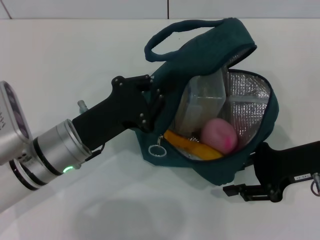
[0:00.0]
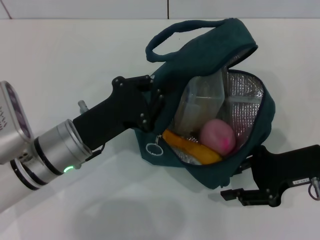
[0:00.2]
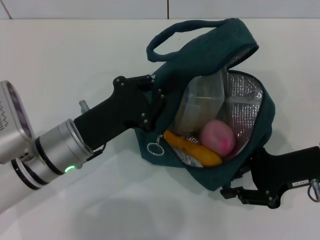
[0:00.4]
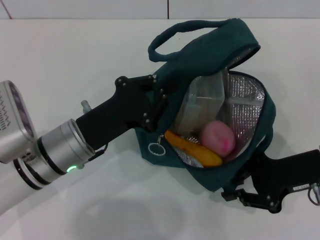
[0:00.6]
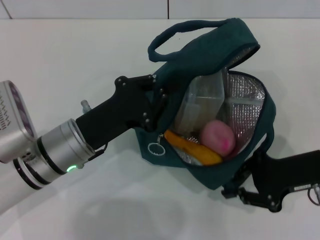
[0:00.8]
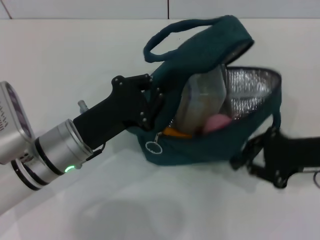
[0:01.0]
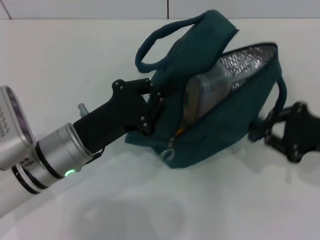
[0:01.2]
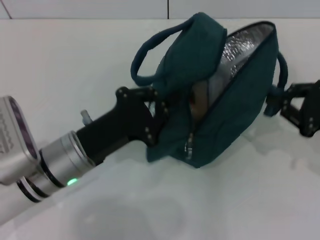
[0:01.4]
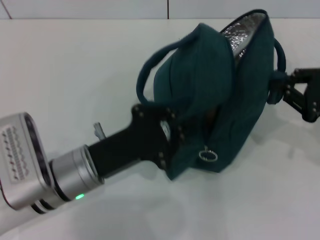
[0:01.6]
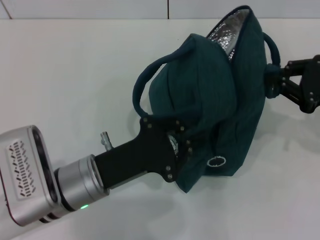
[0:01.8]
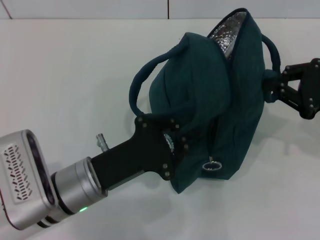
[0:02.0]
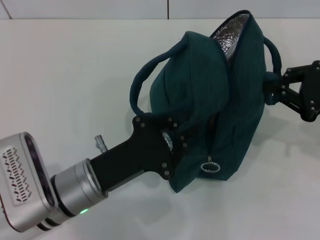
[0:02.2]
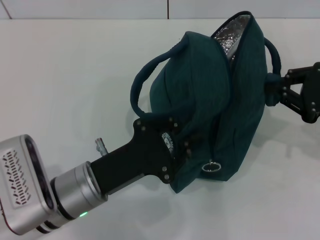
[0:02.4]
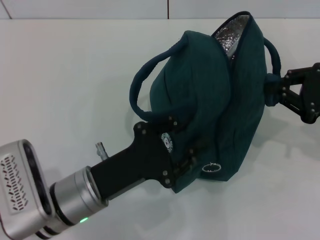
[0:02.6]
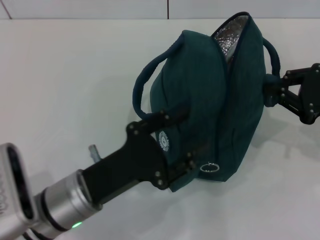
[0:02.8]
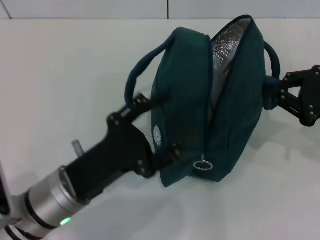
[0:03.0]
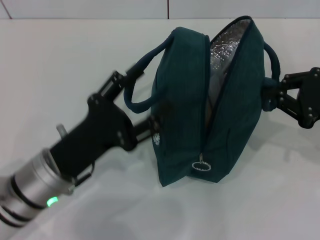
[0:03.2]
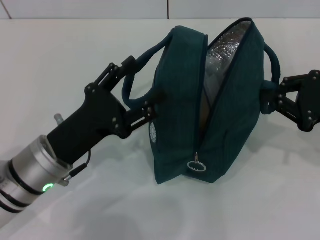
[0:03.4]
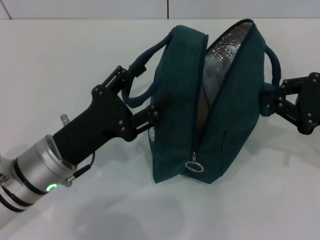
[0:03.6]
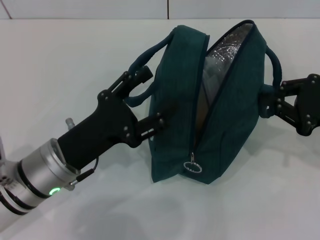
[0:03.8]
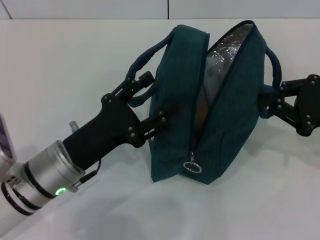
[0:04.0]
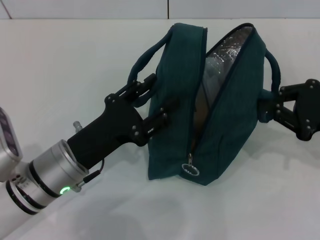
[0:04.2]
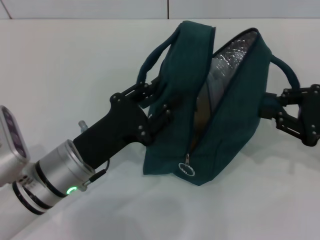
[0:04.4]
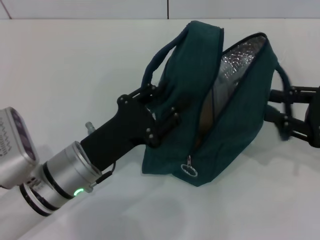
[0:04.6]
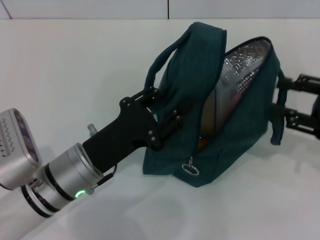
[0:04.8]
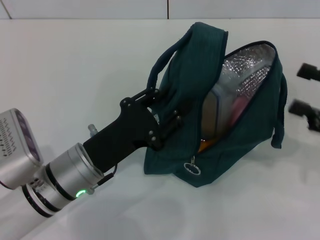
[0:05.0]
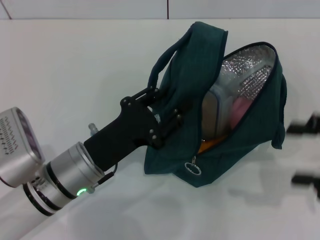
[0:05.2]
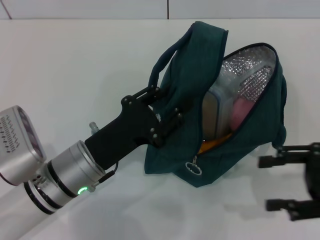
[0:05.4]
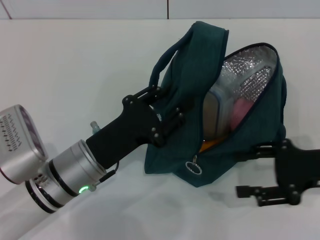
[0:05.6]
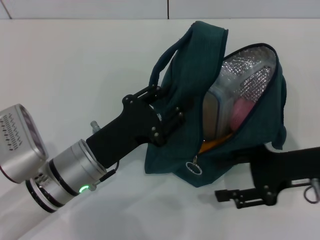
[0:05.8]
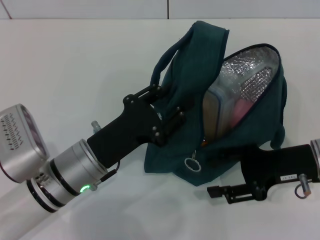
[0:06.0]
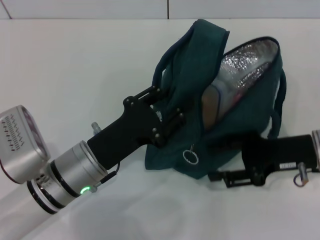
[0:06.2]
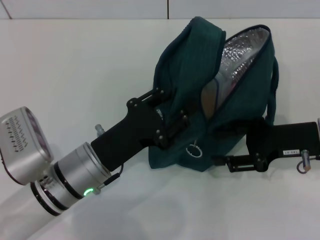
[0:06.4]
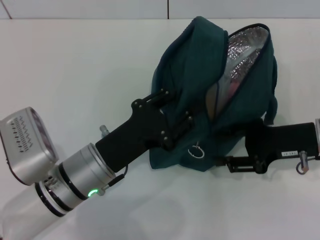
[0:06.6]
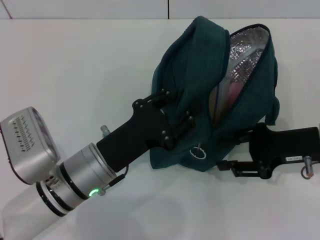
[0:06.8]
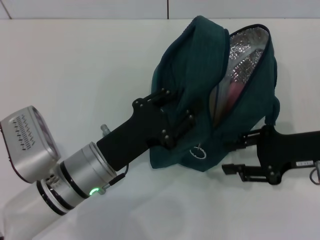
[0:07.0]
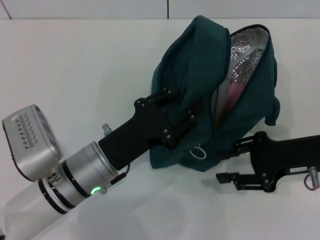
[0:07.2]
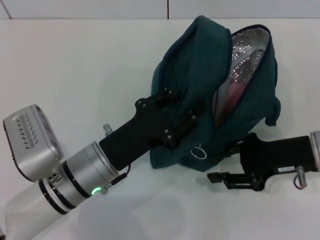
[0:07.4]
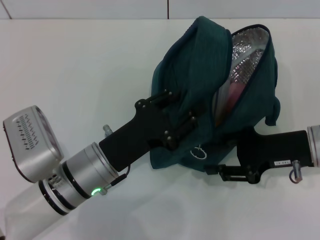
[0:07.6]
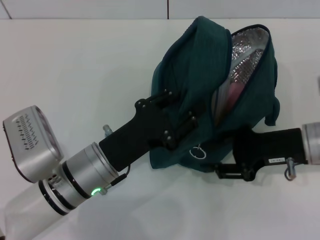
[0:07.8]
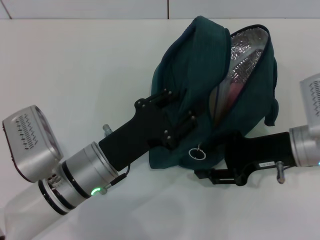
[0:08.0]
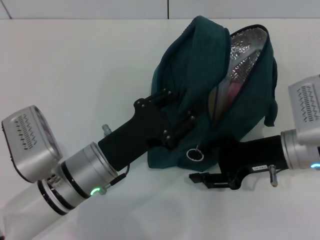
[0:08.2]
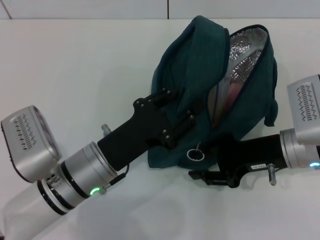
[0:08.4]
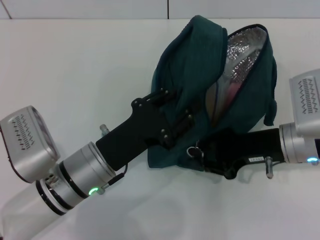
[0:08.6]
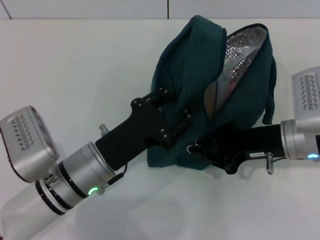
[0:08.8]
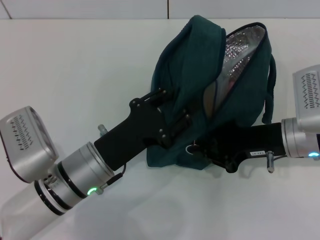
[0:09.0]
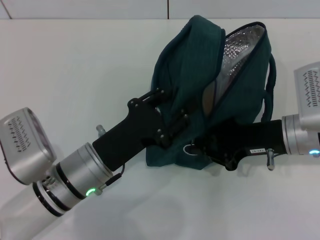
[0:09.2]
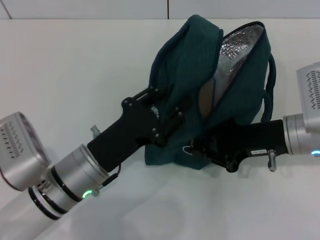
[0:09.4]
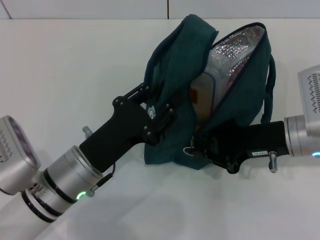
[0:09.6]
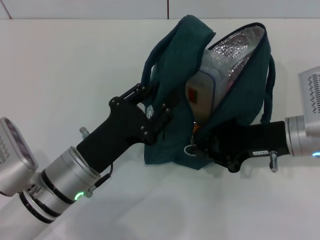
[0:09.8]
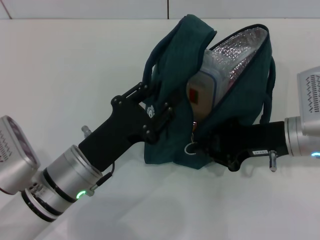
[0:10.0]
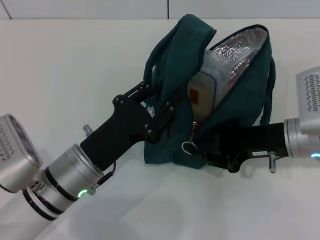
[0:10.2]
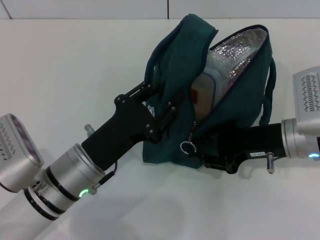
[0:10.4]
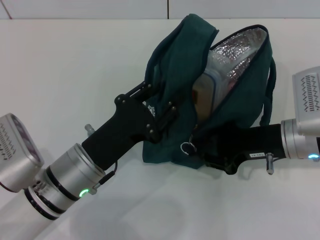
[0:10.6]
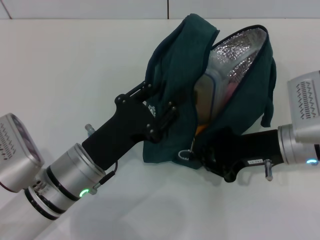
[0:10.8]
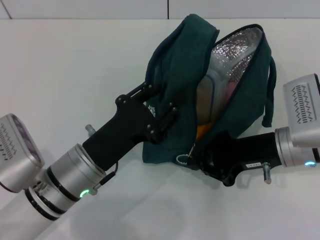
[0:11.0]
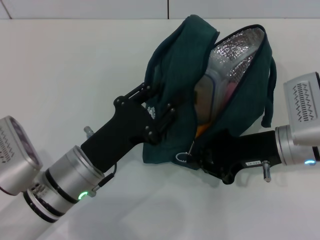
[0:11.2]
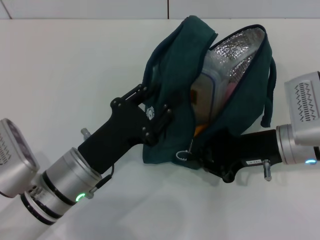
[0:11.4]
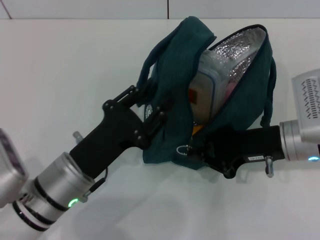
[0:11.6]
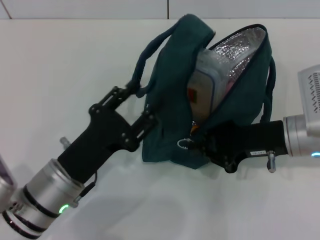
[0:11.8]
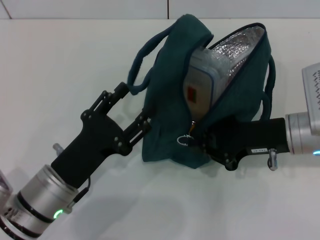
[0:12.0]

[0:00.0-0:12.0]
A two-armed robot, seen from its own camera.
Step, 0:00.0 to 0:04.6: Hold the lunch bag with your right hand.
Step, 0:04.8 to 0:11.4: Hold the lunch bag with your left hand.
0:00.0 to 0:01.6: The right gripper travels to the right by about 5 cm, and closes.
0:01.6 to 0:03.0: The left gripper opens its fingers.
0:04.4 to 0:06.0: The right gripper travels to the left by approximately 5 cm, and opens.
0:07.6 to 0:09.0: The right gripper closes.
0:09.0 to 0:12.0: There are only small adjustments of the grippers.

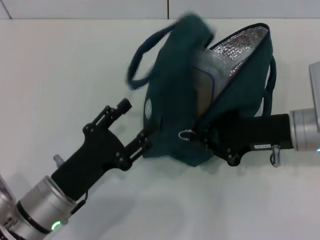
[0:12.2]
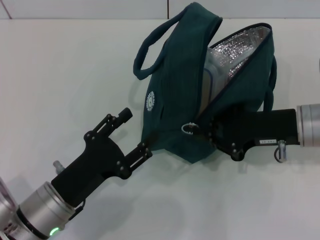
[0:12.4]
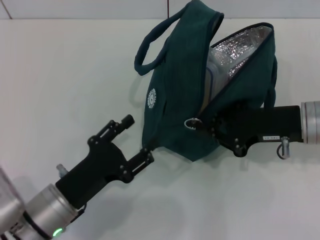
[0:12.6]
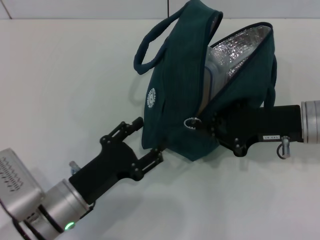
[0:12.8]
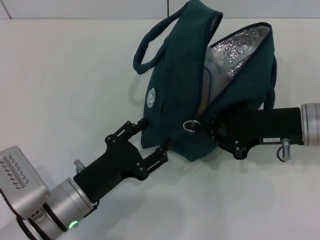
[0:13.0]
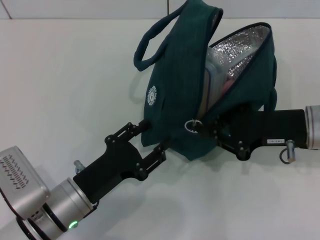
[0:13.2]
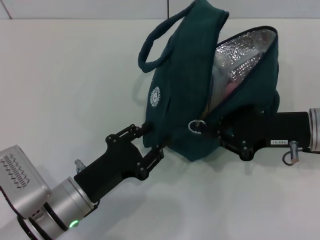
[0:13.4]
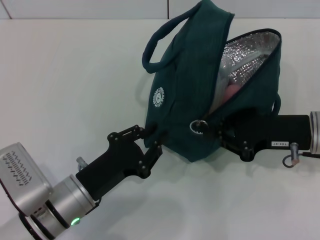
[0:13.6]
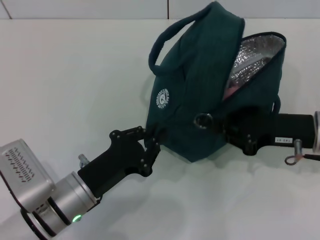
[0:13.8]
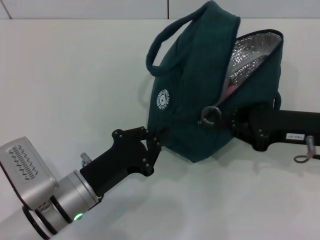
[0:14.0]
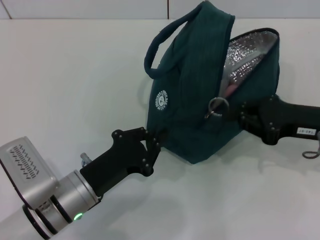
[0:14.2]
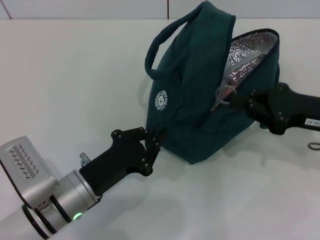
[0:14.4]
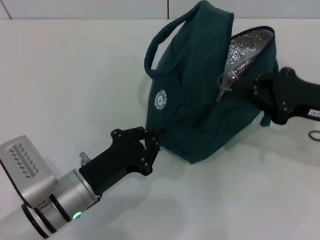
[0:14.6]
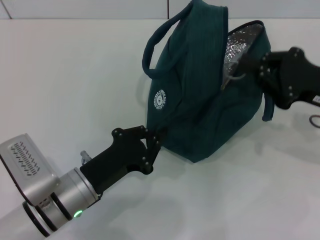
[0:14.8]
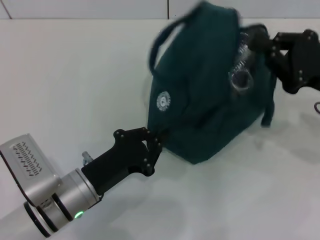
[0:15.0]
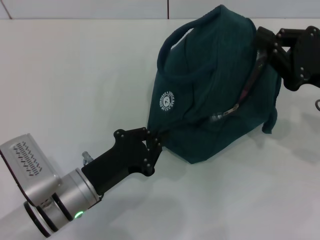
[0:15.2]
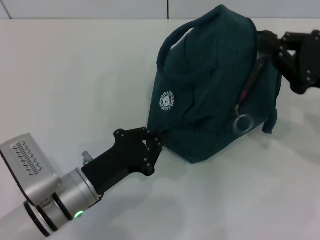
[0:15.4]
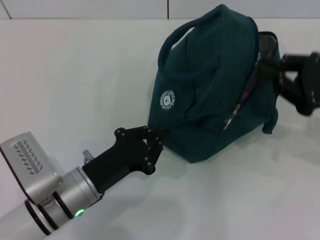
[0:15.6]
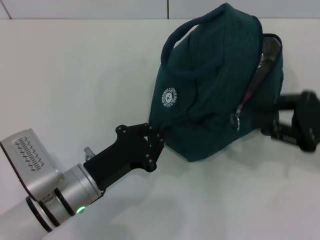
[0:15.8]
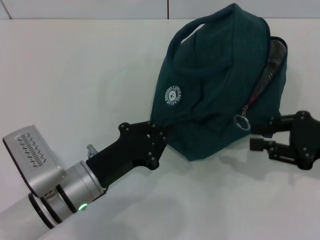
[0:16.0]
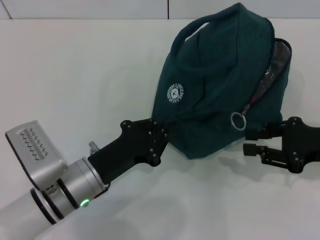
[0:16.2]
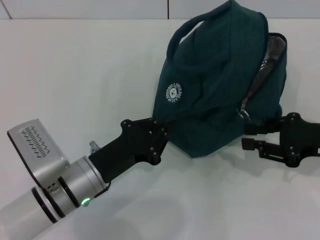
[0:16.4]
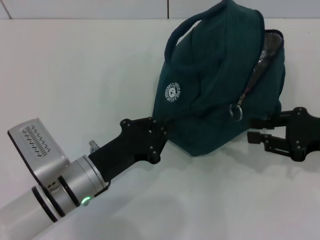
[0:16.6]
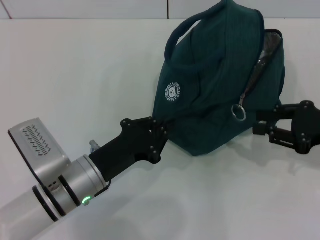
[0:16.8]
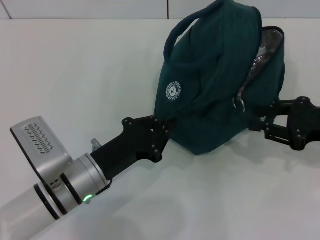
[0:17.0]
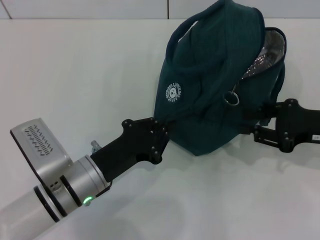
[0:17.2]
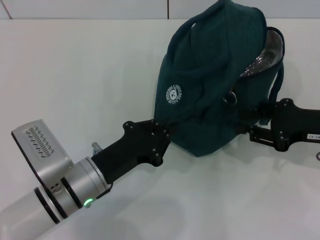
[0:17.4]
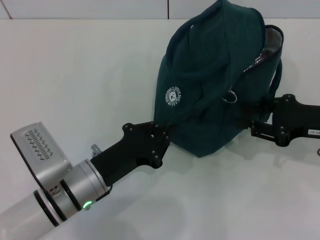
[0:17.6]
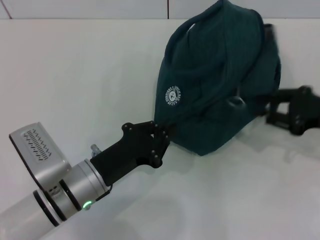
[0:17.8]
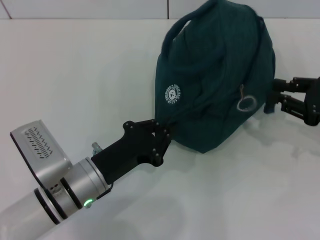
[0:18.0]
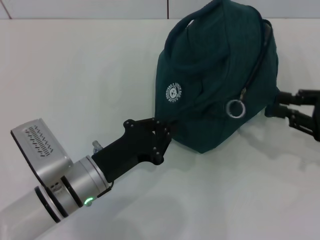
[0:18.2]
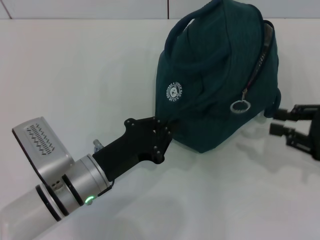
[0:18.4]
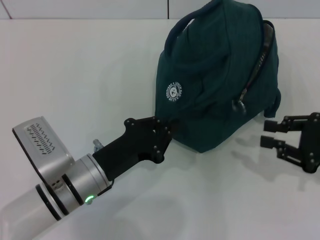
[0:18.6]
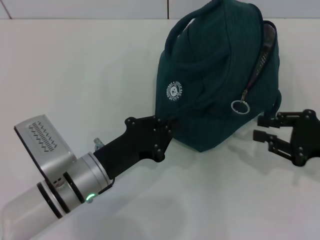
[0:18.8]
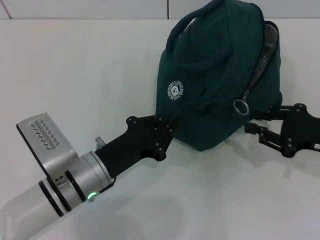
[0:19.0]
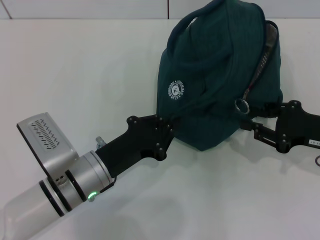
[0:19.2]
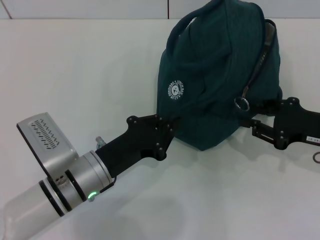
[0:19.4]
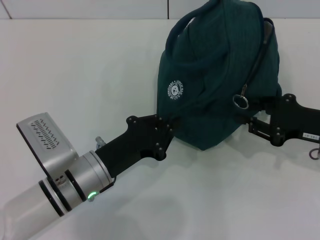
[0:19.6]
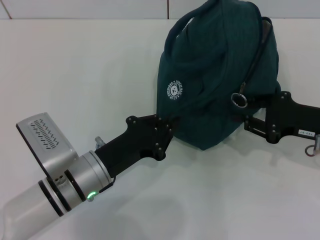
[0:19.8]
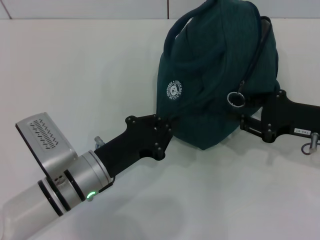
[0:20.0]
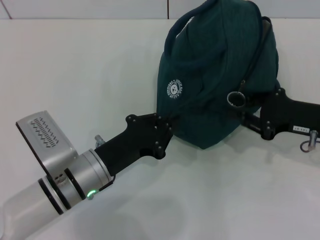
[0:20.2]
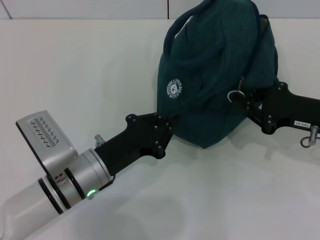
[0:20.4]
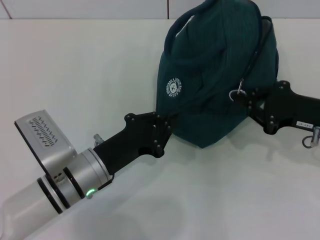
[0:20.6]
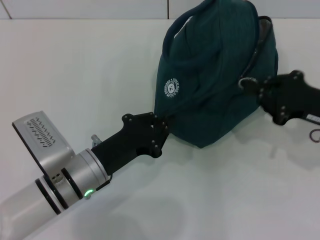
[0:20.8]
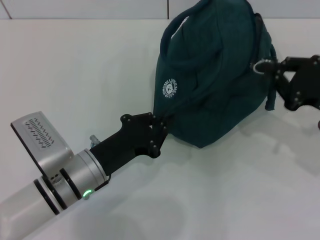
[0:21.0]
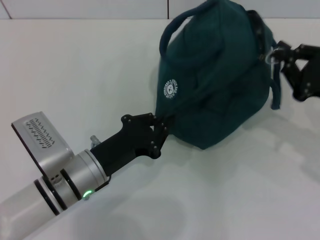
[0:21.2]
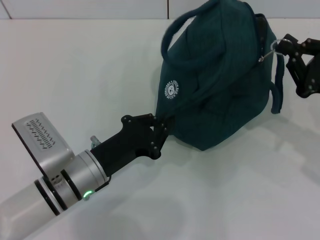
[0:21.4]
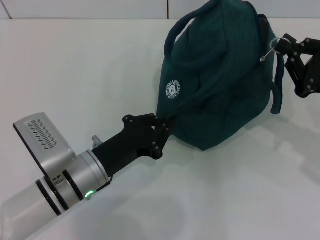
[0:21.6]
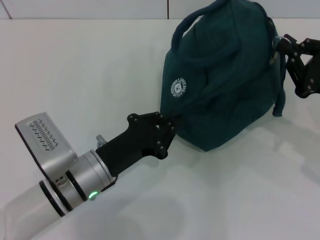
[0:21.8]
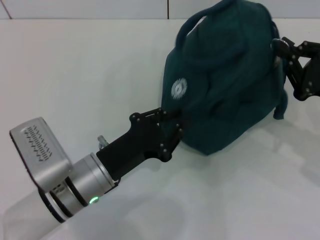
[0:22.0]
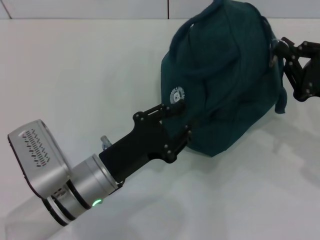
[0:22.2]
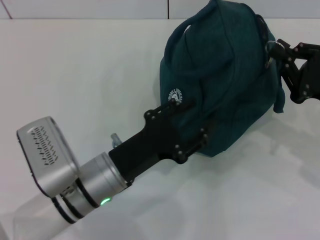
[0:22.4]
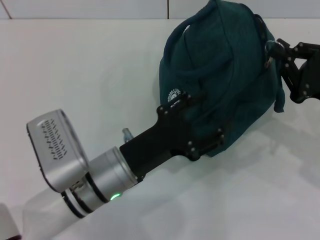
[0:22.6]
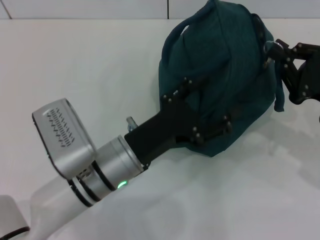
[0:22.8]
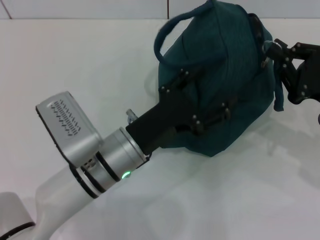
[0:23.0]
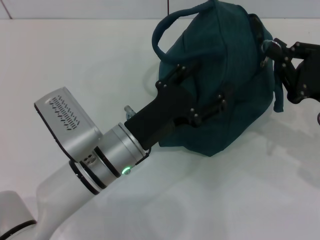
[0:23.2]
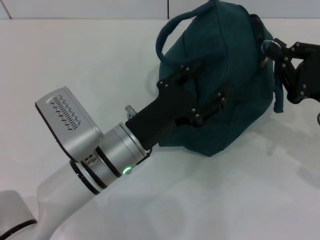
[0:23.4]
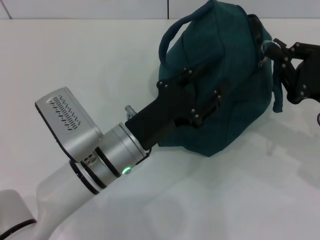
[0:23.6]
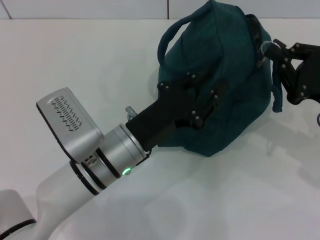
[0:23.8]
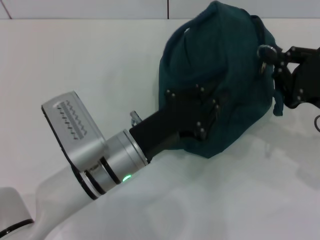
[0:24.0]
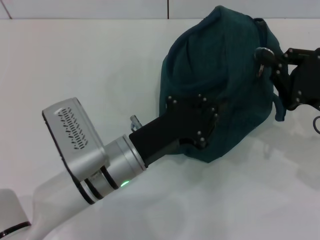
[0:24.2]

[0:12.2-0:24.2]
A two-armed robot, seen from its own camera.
0:12.2 to 0:13.8: The left gripper closes its fingers.
0:13.8 to 0:15.2: The right gripper ends up approximately 5 cm from where it was.
0:15.2 to 0:16.6: The right gripper opens.
0:16.6 to 0:18.2: The grippers make only small movements.
0:18.2 to 0:19.8: The right gripper heads to the left, covering approximately 5 cm.
0:21.2 to 0:22.6: The left gripper moves about 5 cm, and opens its fingers.
0:22.6 to 0:24.2: The left gripper closes.
